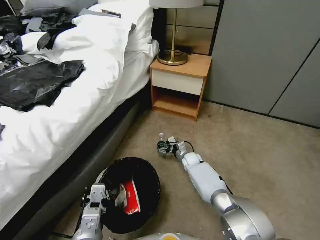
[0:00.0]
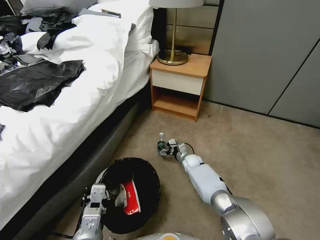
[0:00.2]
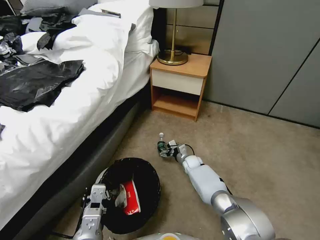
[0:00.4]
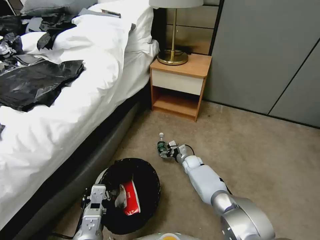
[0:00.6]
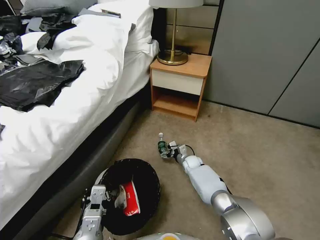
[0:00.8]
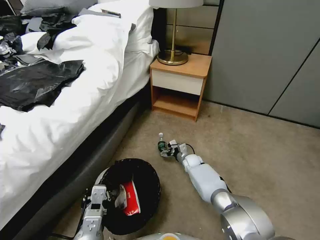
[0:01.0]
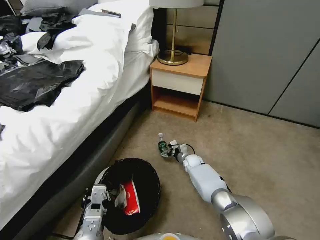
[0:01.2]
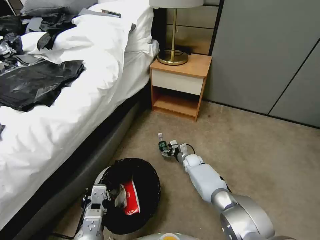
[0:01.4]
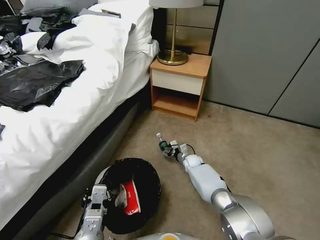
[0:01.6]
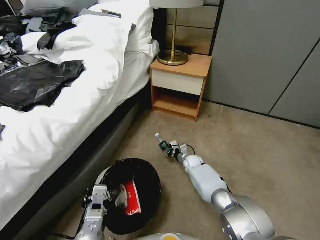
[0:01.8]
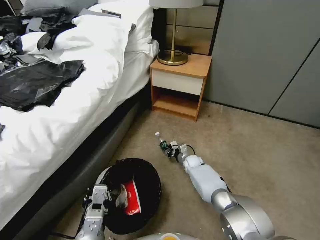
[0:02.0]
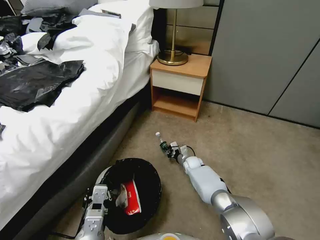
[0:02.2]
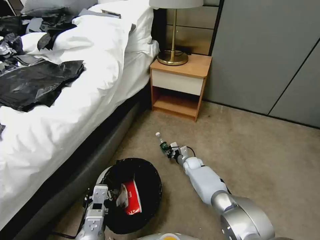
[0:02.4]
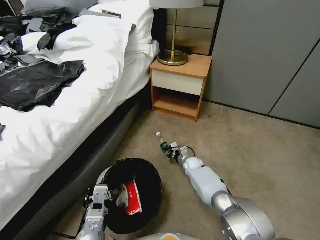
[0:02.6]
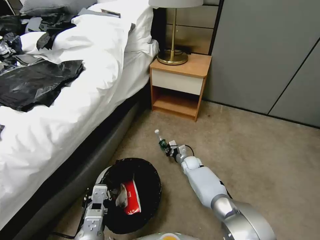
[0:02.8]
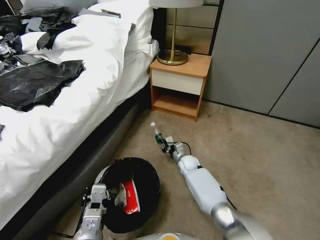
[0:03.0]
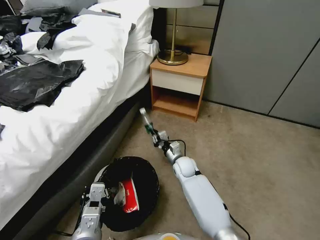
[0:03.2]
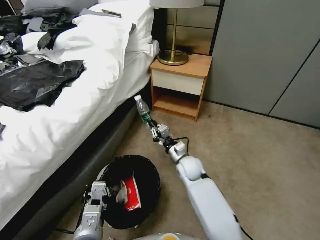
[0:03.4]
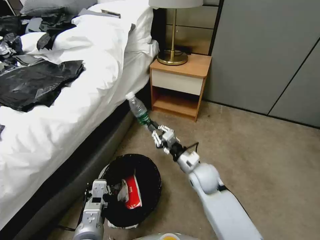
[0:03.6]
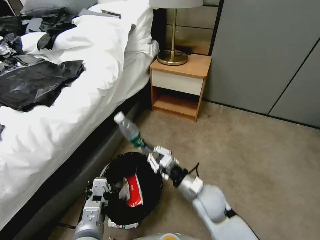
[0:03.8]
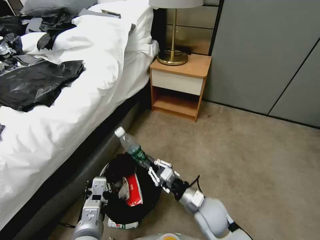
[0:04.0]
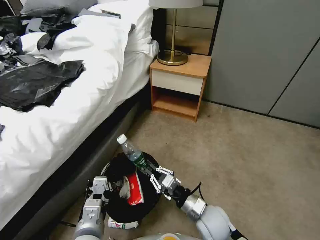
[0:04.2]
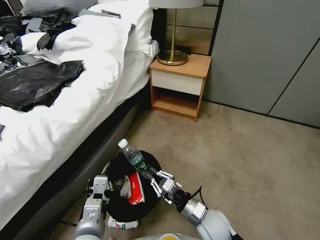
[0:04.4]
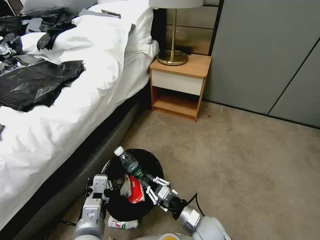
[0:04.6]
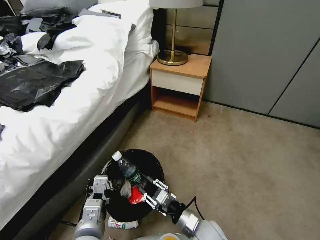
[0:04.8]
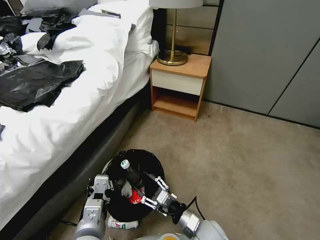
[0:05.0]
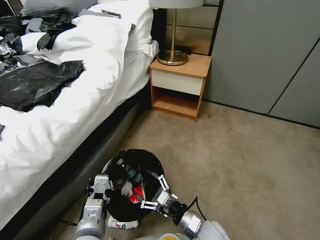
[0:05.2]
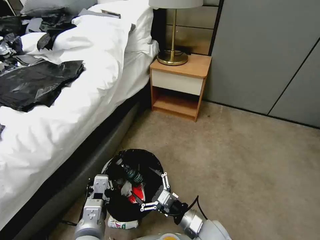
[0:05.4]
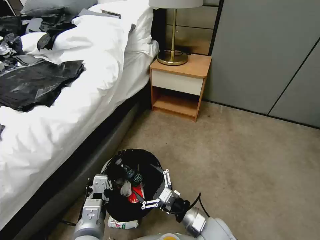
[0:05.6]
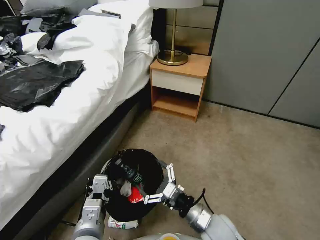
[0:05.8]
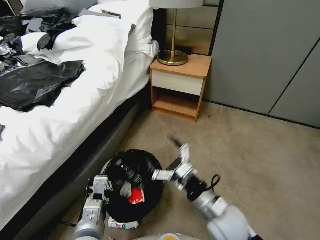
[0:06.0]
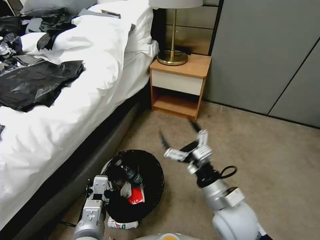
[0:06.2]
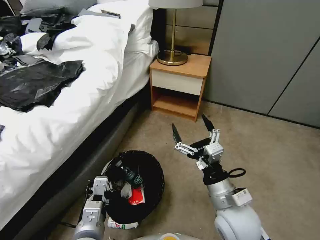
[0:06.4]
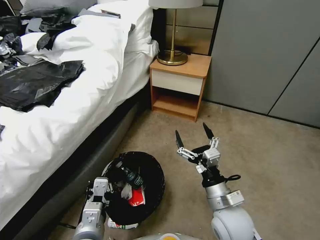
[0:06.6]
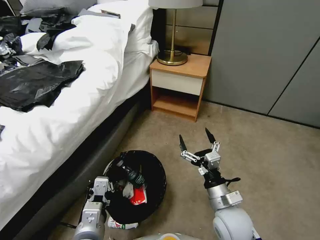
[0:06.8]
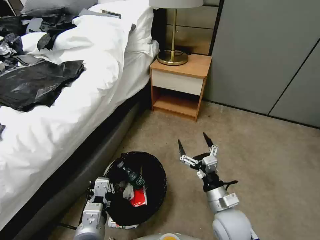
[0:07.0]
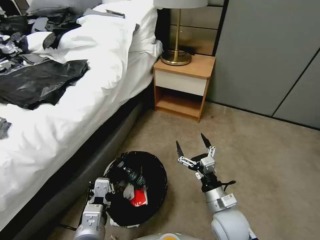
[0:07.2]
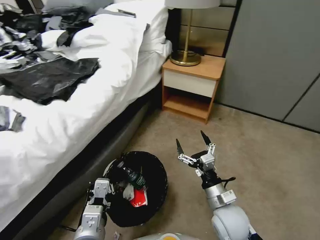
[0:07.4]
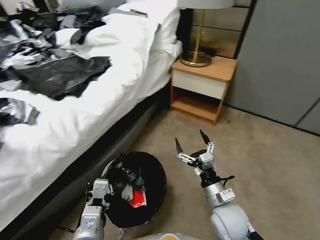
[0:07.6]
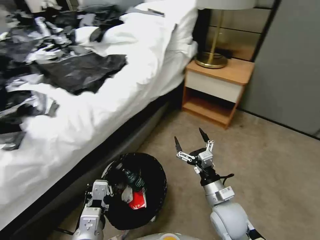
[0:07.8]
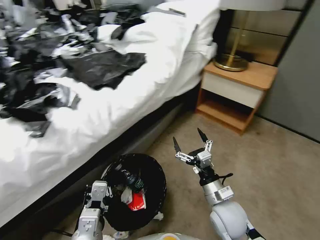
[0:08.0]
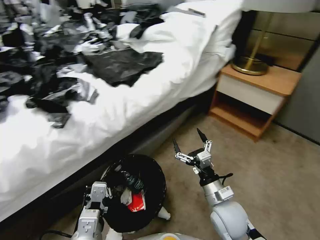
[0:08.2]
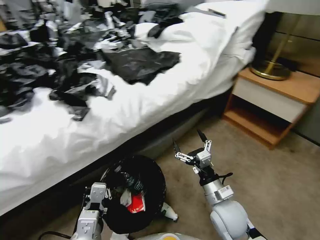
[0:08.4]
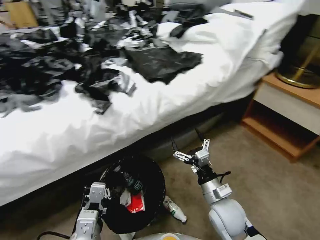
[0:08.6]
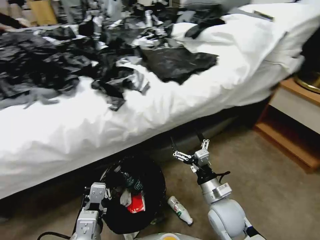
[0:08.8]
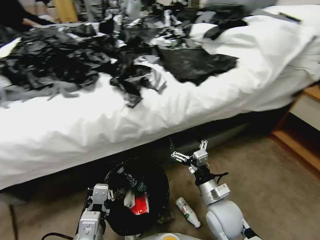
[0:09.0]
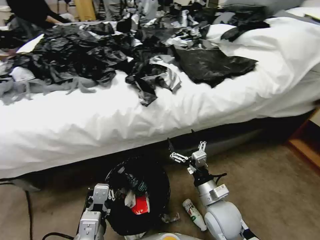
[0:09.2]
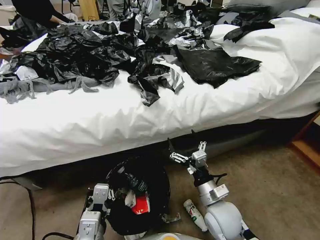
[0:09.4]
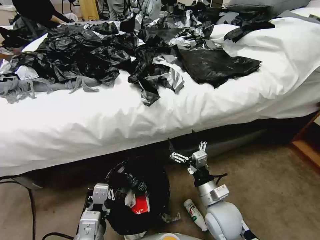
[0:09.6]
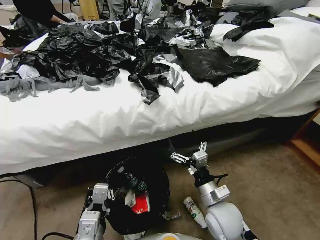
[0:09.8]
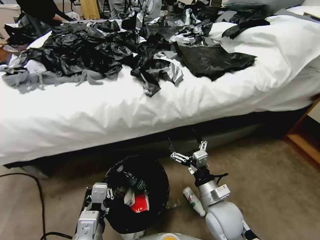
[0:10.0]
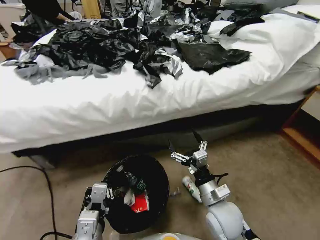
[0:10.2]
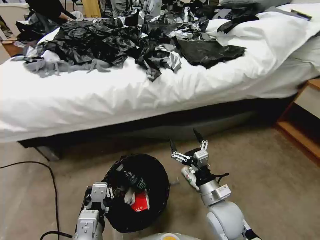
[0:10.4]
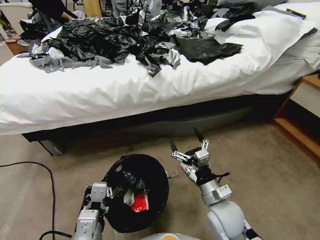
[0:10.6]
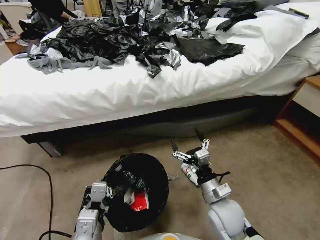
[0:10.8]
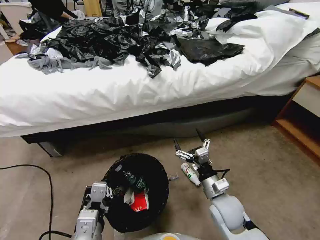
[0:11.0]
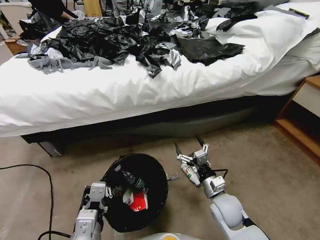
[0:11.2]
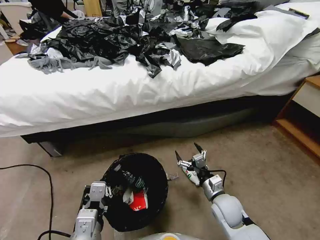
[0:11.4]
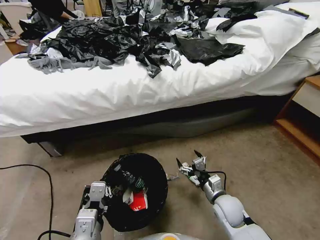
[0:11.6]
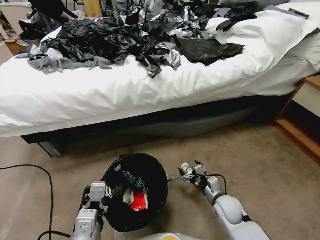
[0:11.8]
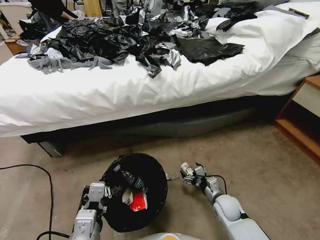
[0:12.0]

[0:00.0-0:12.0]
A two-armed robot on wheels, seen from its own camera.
Task of the whole recording: Pick up the trash bin, then pick up the garbage from the floor and place it into the trash bin.
0:00.0 to 0:01.6: There are only small adjustments of the grippers.
0:01.6 to 0:03.0: The right gripper moves some 5 cm, and closes up.
0:03.0 to 0:04.4: The right gripper goes roughly 25 cm backward.
0:04.4 to 0:06.0: The right gripper goes some 10 cm upward, and opens.
0:06.0 to 0:07.6: The right gripper ends up roughly 5 cm from where it was.
0:10.4 to 0:12.0: The right gripper travels downward and to the right by about 20 cm.

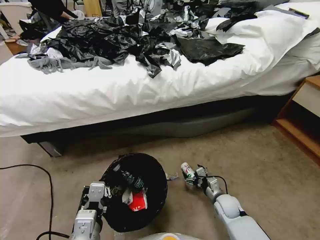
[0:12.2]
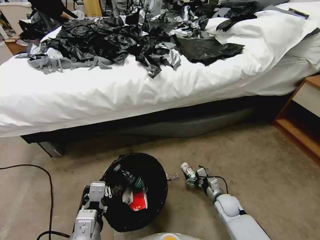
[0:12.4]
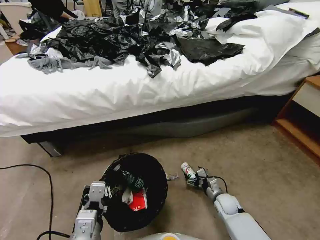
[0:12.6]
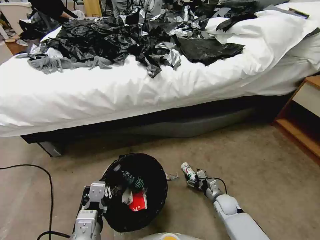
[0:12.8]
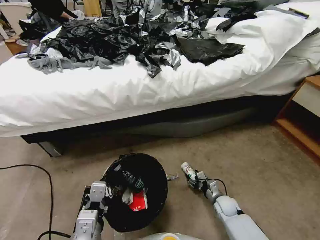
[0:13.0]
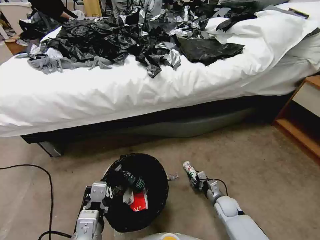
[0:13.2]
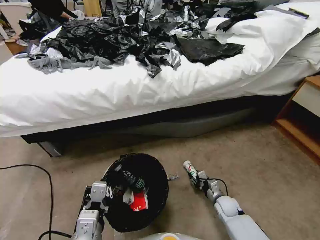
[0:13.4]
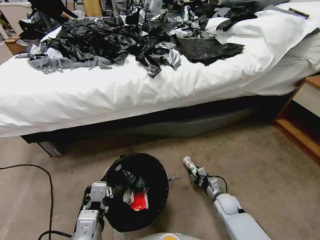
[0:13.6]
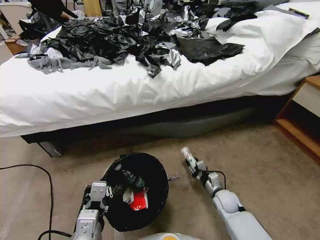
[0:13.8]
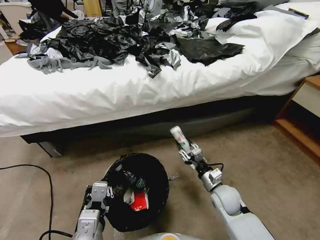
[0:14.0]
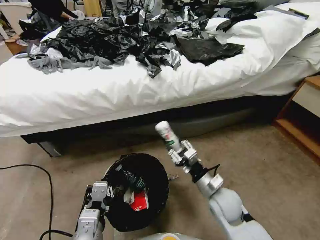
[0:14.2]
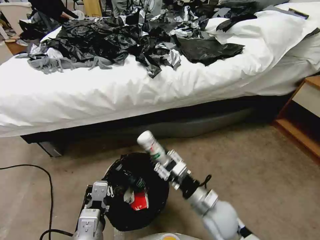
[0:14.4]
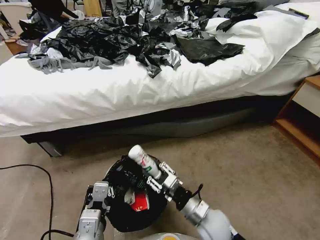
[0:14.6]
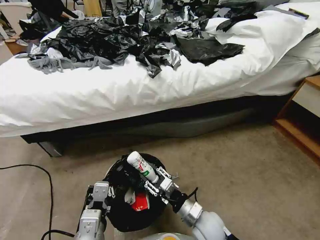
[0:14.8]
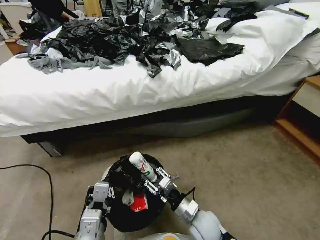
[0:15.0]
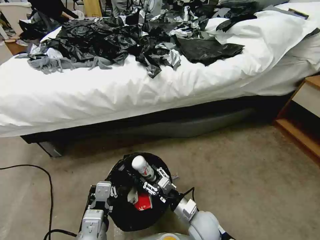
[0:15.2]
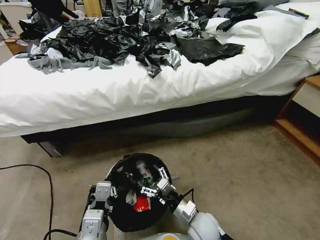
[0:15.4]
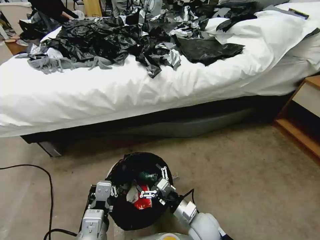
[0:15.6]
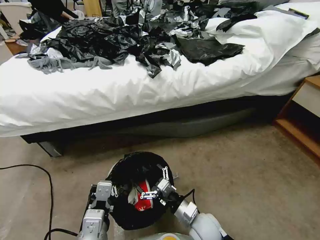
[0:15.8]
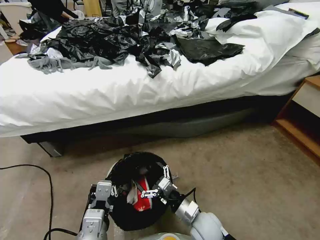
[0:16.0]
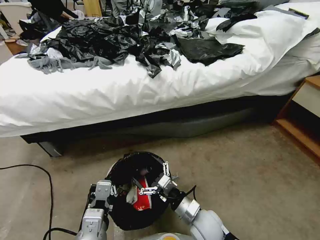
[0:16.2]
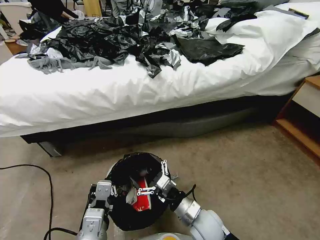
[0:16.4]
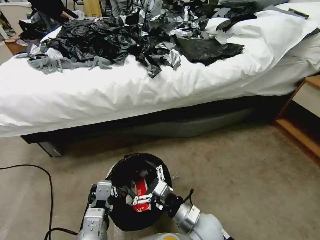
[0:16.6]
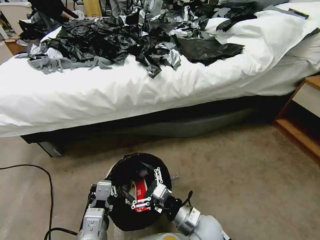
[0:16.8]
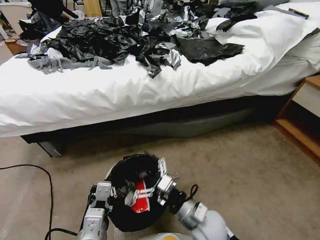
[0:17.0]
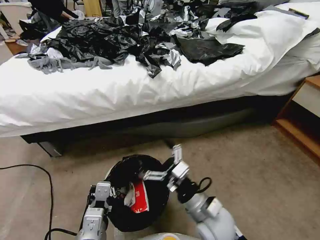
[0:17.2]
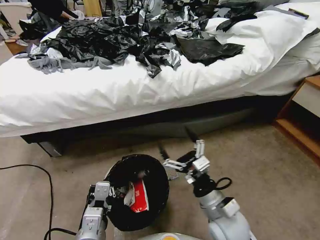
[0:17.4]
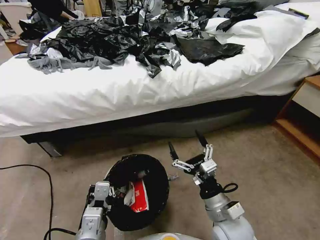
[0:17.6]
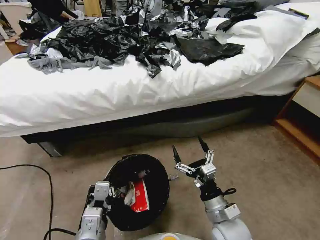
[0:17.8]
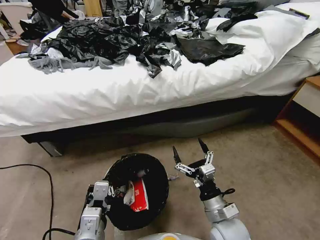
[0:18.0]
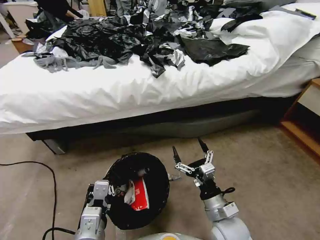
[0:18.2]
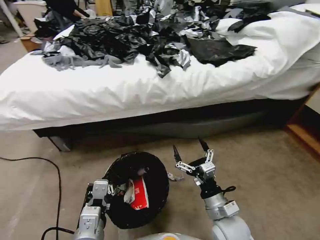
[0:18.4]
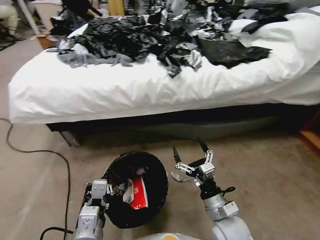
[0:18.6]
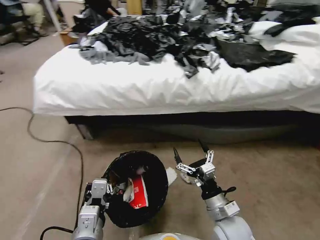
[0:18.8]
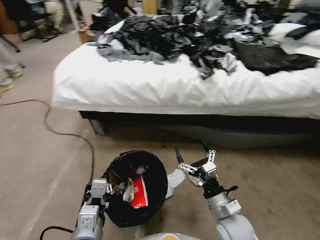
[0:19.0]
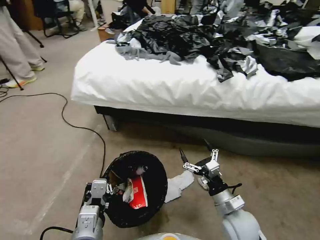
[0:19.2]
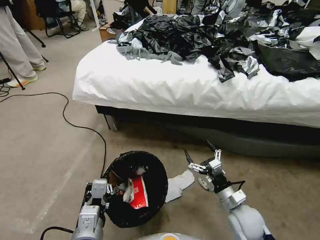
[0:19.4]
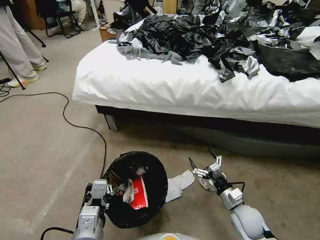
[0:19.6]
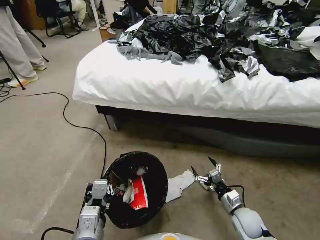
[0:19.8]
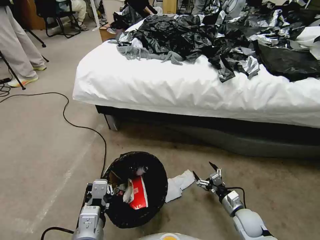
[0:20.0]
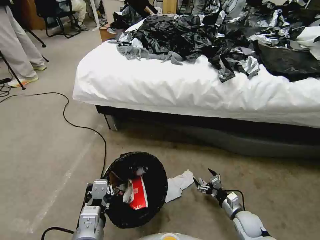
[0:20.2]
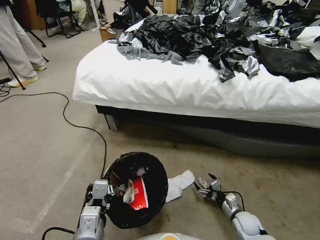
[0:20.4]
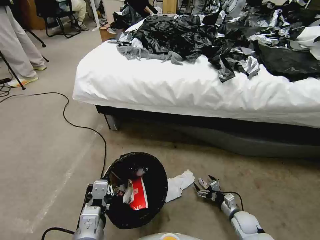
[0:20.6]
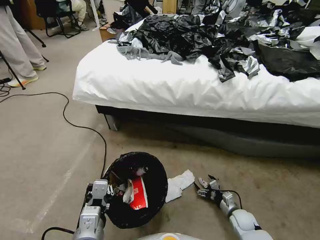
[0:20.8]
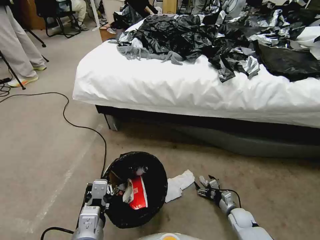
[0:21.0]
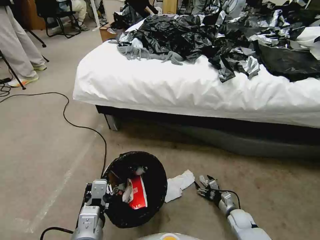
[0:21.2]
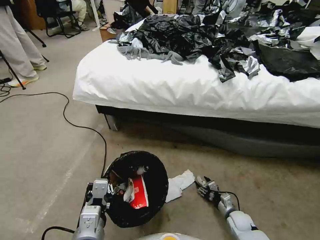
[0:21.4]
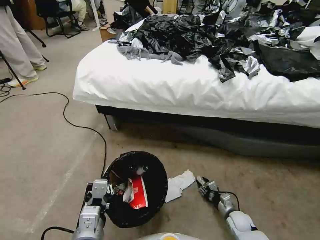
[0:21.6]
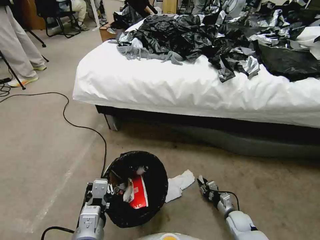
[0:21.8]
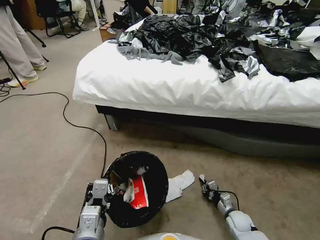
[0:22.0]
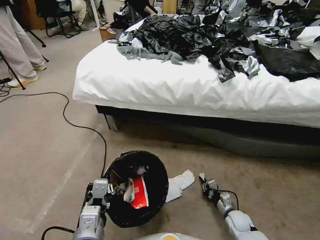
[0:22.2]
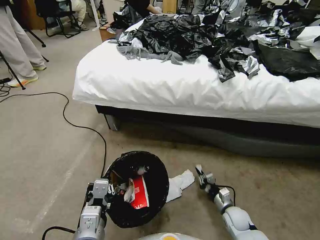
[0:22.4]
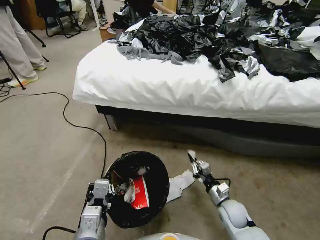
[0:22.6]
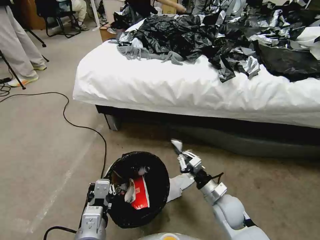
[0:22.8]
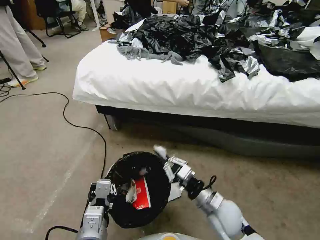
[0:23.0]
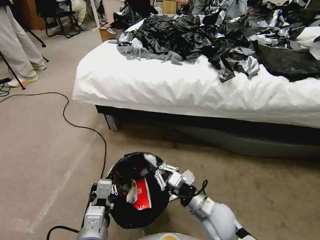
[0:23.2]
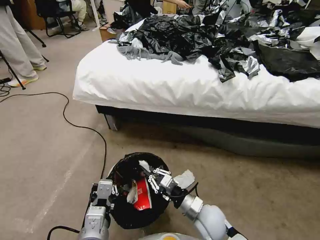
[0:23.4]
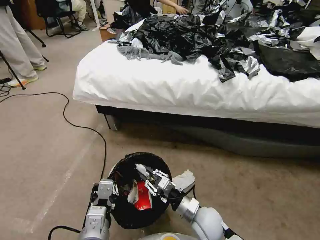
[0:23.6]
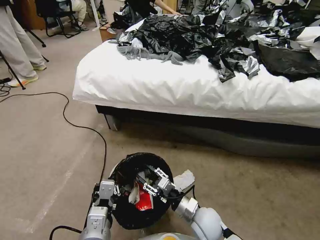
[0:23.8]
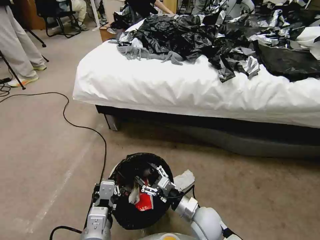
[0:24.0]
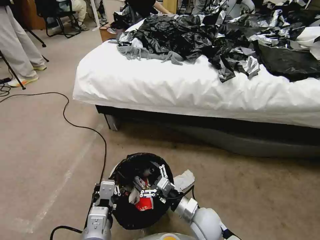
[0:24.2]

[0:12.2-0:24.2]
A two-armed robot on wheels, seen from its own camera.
Task of the whole recording: Pick up the trash bin, then pick up the garbage from the floor and place it into the trash bin.
0:12.2 to 0:13.8: The right gripper closes its fingers.
0:13.8 to 0:15.2: The right gripper shifts about 20 cm to the left, backward and upward.
0:15.2 to 0:16.6: The right gripper opens its fingers.
0:16.6 to 0:18.2: The right gripper goes roughly 5 cm to the right, and goes upward and returns, about 10 cm each way.
0:18.2 to 0:19.8: The right gripper shifts some 15 cm downward and to the right.
0:19.8 to 0:21.2: The right gripper shifts some 10 cm downward.
0:21.2 to 0:22.6: The right gripper goes approximately 15 cm upward and to the left, and closes its fingers.
0:22.6 to 0:24.2: The right gripper travels to the left and upward by roughly 15 cm, and opens.
